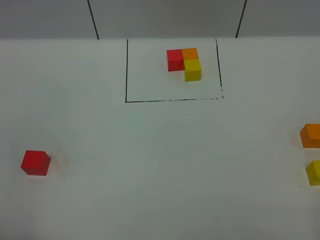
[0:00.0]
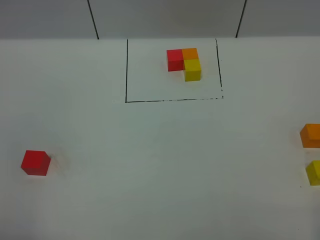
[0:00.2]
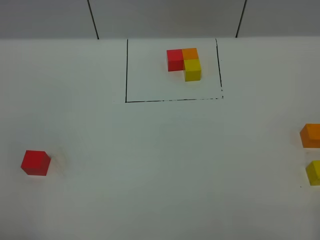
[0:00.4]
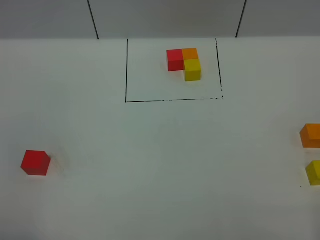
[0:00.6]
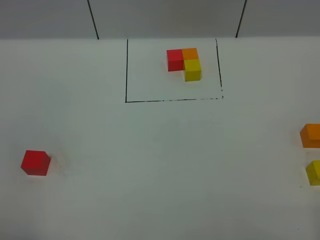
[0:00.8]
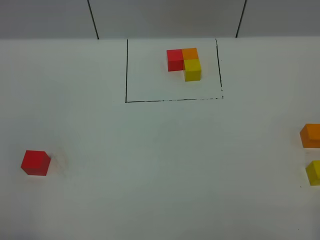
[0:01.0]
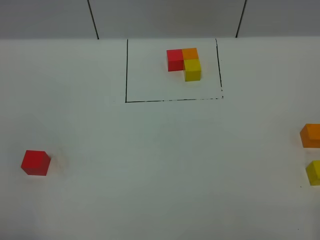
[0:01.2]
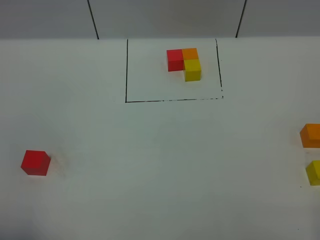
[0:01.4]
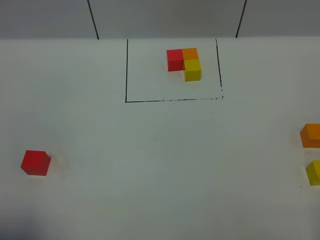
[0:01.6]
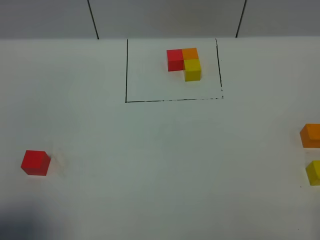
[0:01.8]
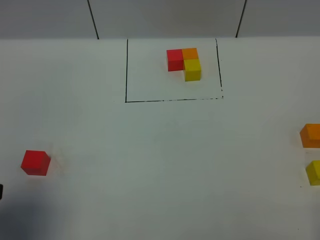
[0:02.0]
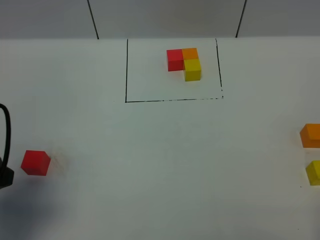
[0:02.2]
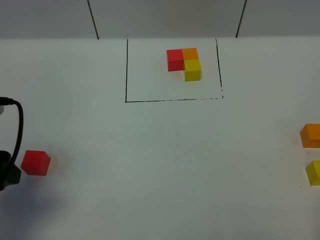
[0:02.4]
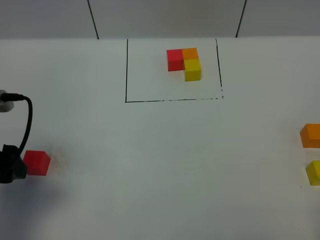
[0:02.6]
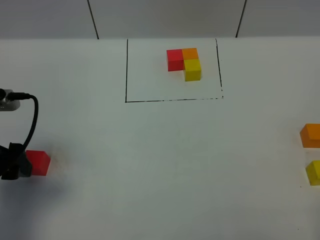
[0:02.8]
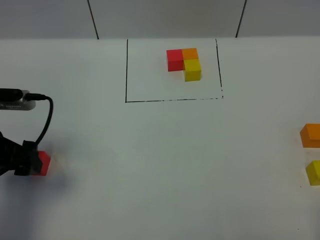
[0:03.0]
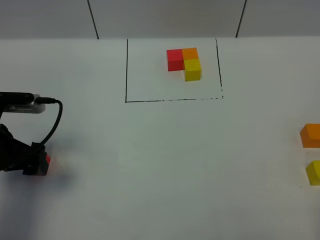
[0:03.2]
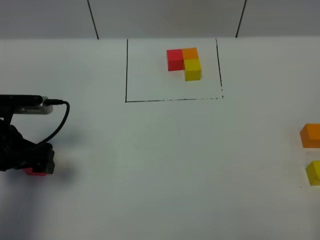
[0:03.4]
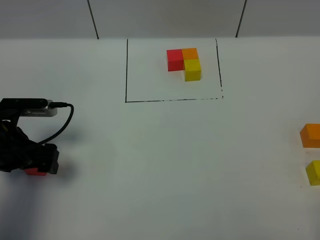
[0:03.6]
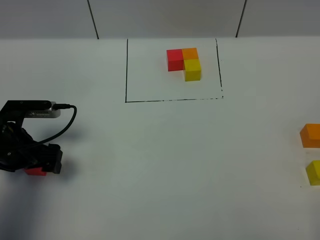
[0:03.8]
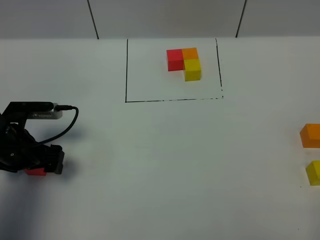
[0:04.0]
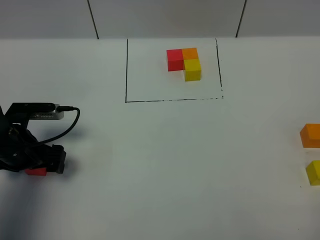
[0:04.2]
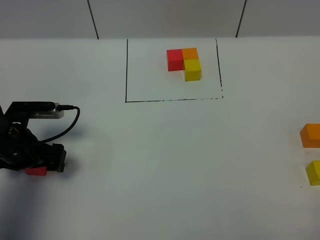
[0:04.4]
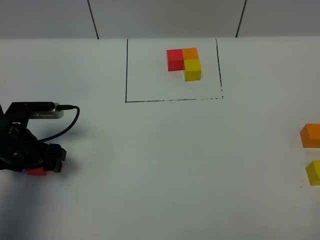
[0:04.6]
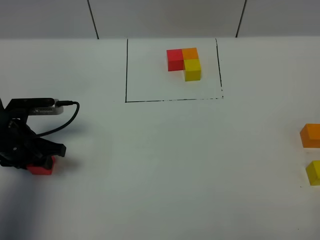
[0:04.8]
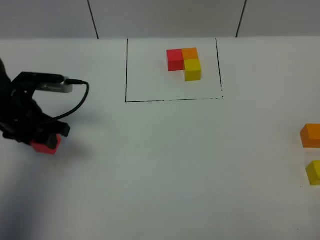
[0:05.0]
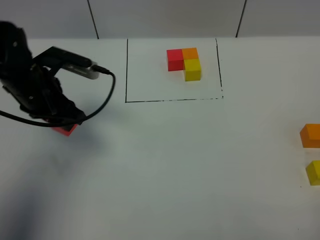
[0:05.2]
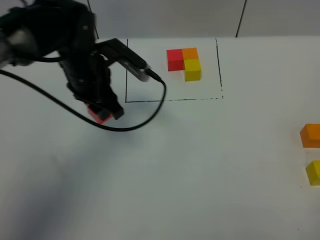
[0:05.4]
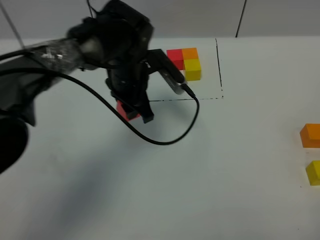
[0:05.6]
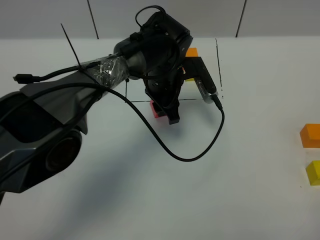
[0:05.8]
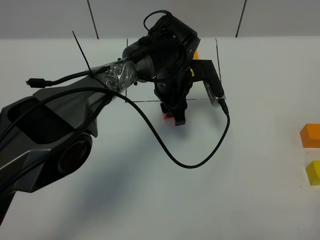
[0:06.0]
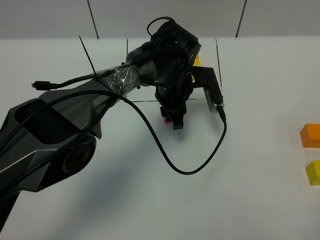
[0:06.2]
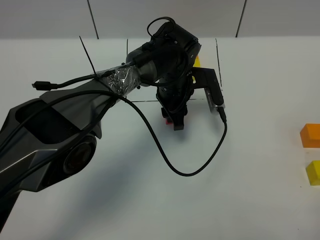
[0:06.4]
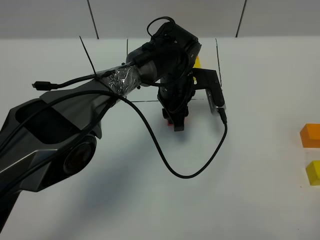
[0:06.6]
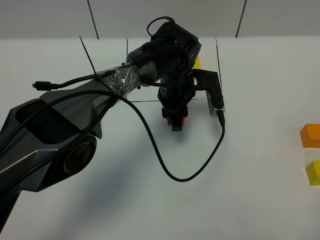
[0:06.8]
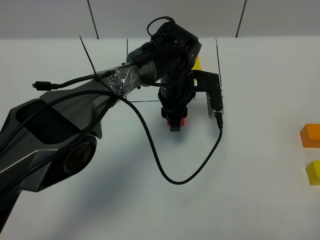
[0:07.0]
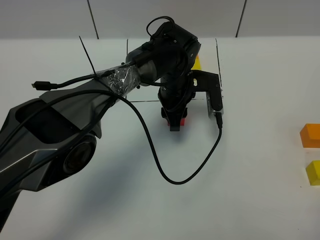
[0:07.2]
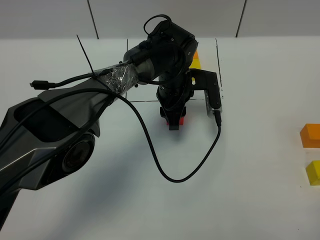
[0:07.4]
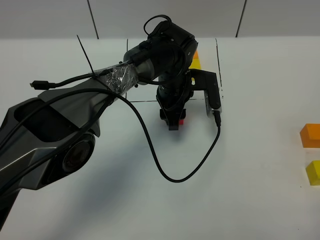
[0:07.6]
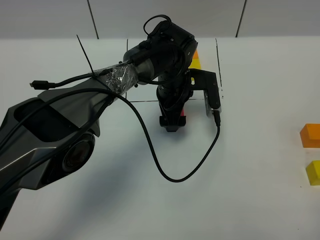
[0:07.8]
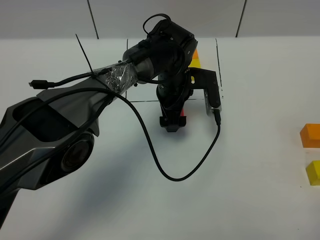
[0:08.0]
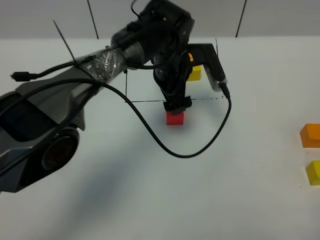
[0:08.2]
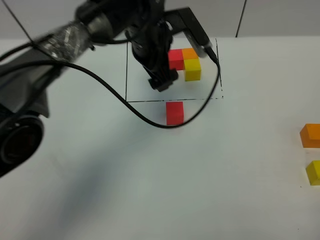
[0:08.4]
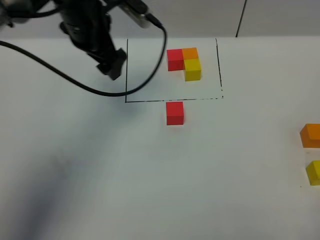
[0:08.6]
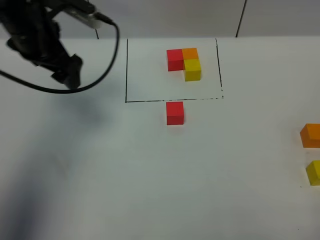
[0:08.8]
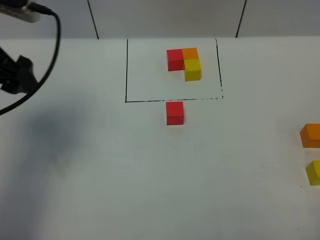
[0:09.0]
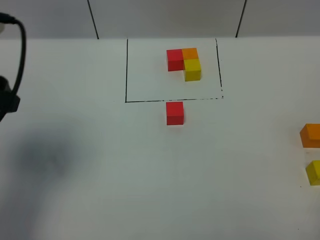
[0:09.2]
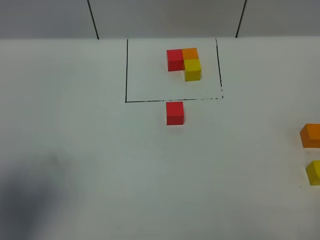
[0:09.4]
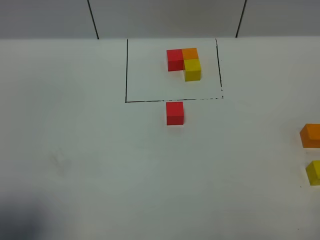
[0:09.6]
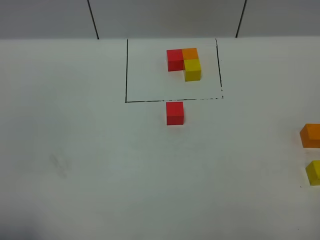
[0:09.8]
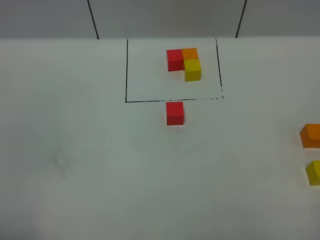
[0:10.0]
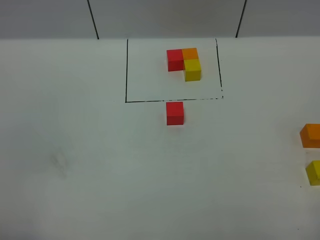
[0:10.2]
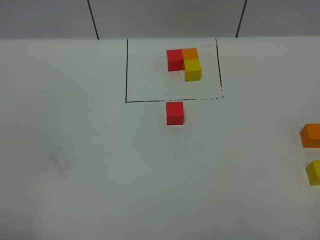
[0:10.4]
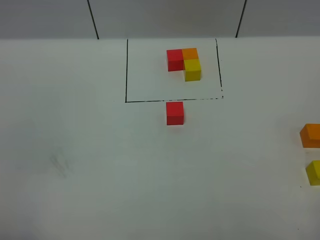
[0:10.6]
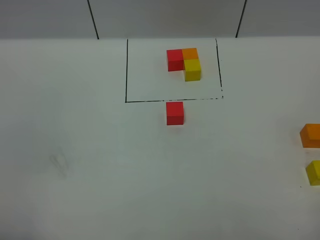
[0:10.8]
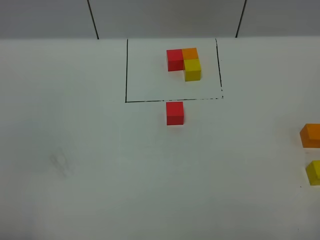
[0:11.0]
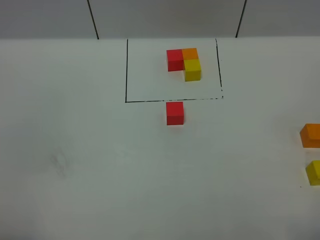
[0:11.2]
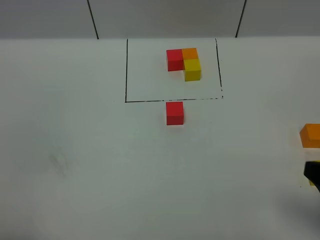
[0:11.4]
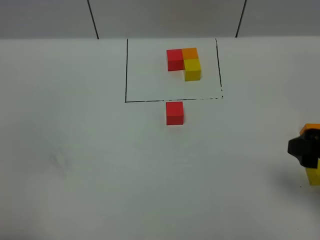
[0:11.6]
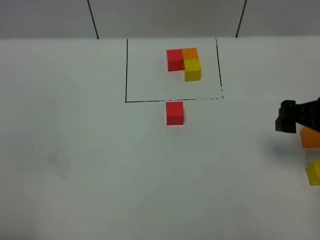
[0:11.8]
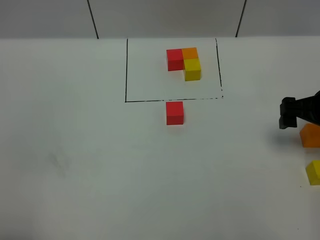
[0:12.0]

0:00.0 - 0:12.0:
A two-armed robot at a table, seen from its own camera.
Task of the whole recording: According to the building block template in front, assemble the scattered blocks together.
Step, 0:00.0 - 0:07.4: Put the red build block in the center of the table.
0:01.6 - 0:03.0: The left gripper goes some 20 cm forward.
0:03.0 - 0:04.4: The left gripper shifts roughly 10 cm downward and forward.
0:04.4 - 0:06.0: The left gripper travels to the right and forward by about 35 cm, and closes its fingers.
0:06.0 - 0:07.6: There are only small adjustments of the grippers.
0:07.6 - 0:09.0: The left gripper heads to the left, upward and backward, covering approximately 40 cm, and opens its fingers.
0:09.0 - 0:10.4: The left gripper travels backward by approximately 30 cm.
0:10.4 - 0:12.0: The right gripper goes some 30 cm forward.

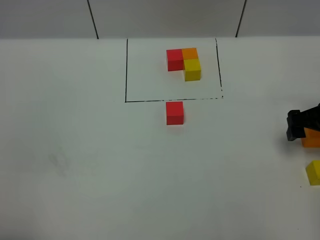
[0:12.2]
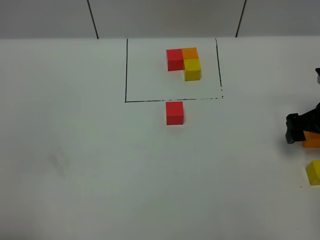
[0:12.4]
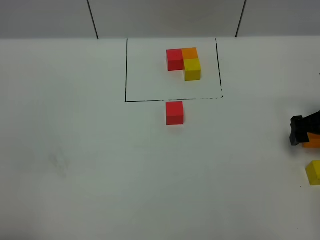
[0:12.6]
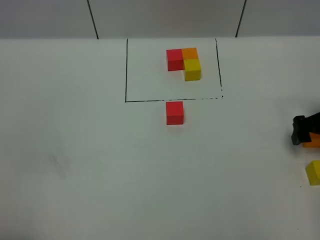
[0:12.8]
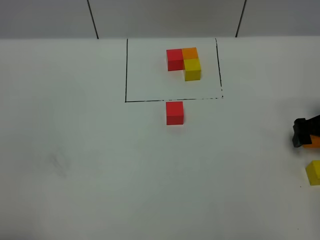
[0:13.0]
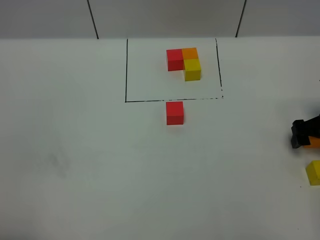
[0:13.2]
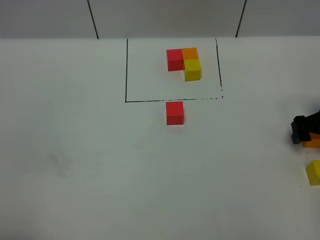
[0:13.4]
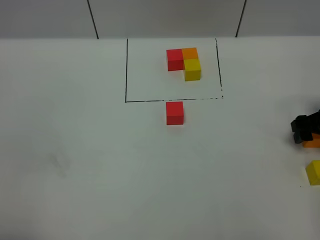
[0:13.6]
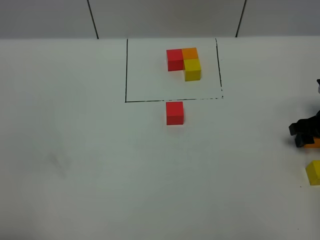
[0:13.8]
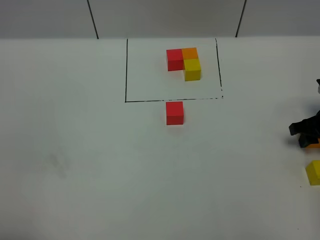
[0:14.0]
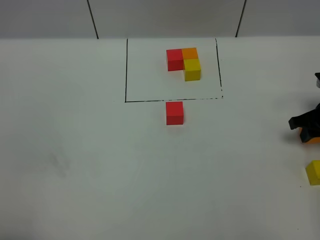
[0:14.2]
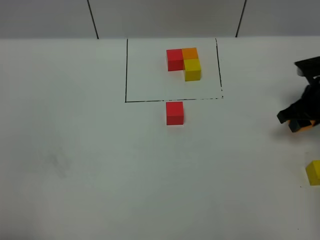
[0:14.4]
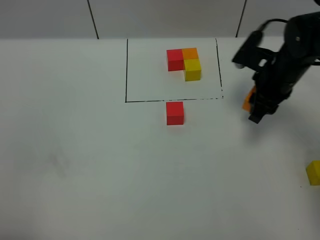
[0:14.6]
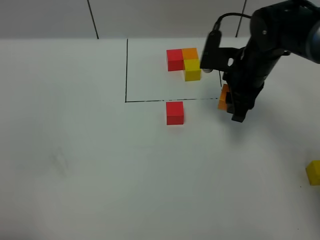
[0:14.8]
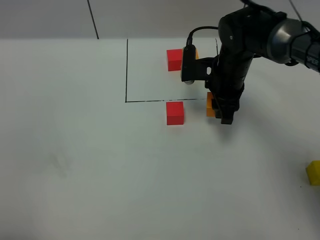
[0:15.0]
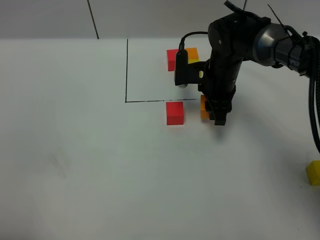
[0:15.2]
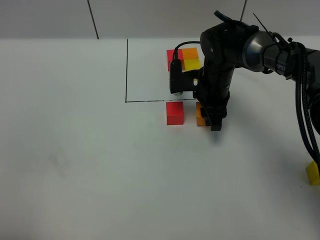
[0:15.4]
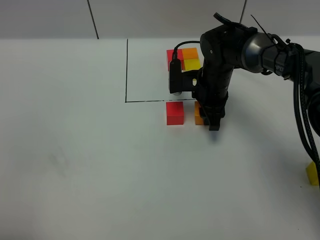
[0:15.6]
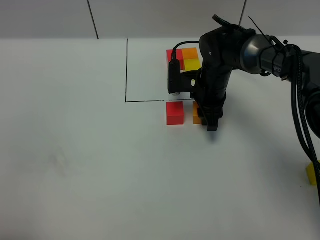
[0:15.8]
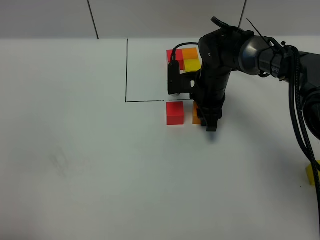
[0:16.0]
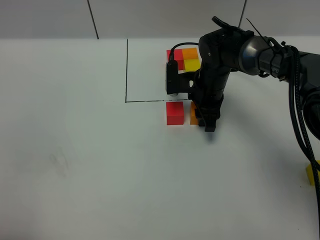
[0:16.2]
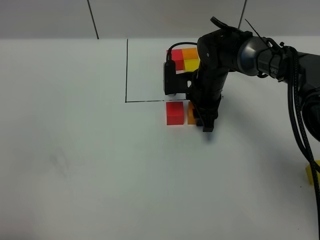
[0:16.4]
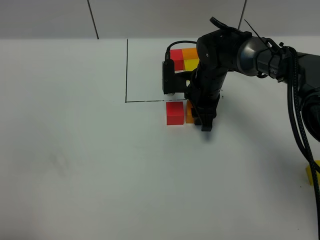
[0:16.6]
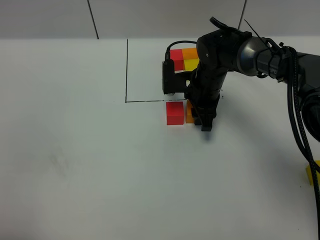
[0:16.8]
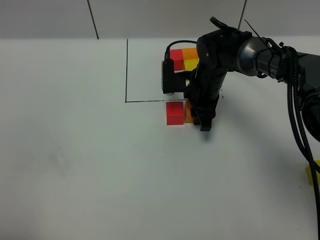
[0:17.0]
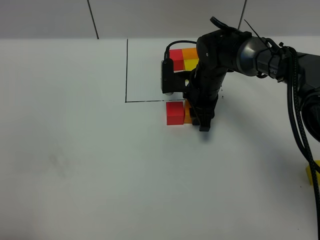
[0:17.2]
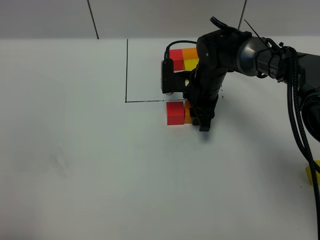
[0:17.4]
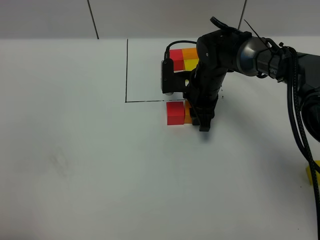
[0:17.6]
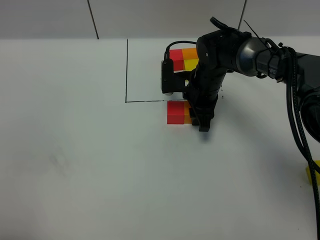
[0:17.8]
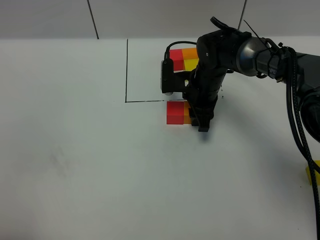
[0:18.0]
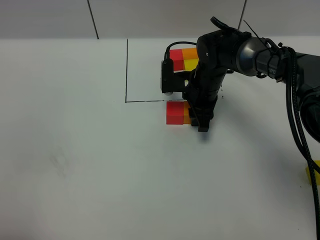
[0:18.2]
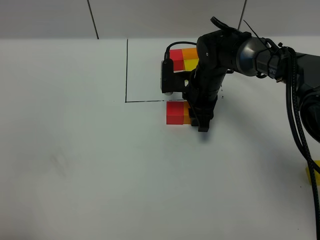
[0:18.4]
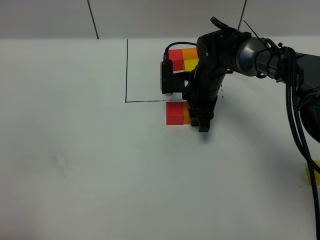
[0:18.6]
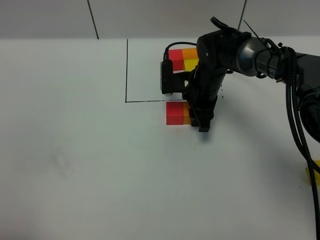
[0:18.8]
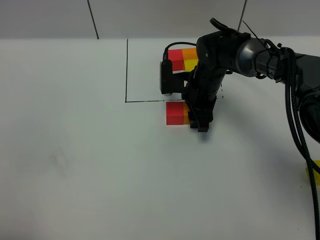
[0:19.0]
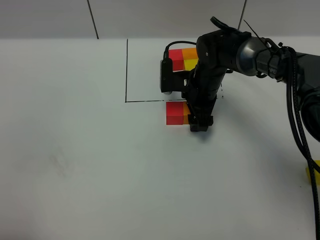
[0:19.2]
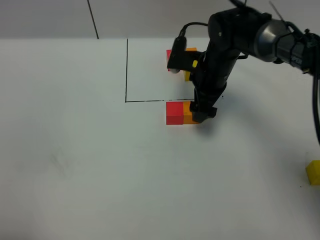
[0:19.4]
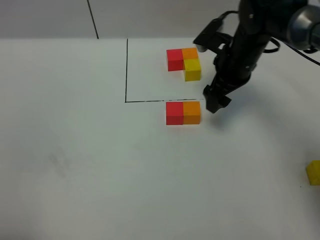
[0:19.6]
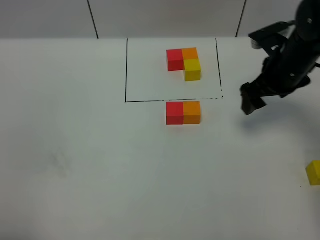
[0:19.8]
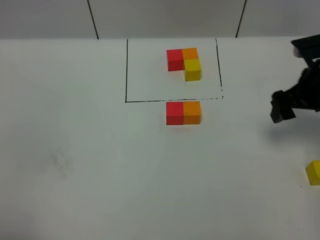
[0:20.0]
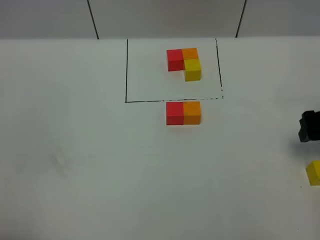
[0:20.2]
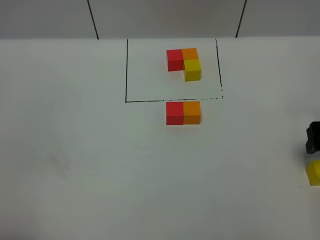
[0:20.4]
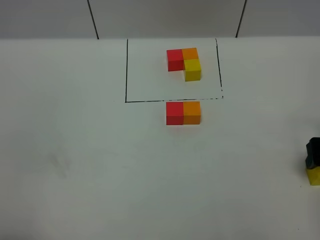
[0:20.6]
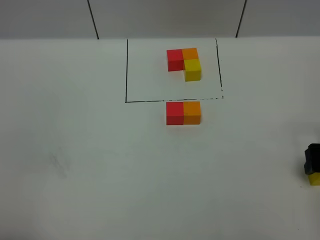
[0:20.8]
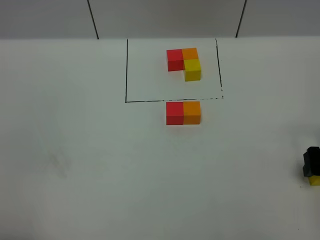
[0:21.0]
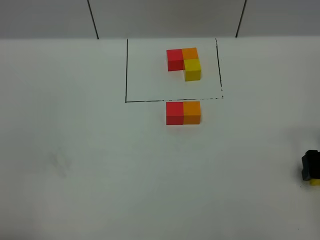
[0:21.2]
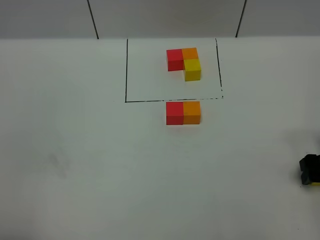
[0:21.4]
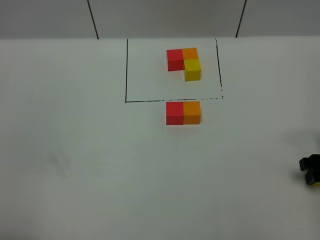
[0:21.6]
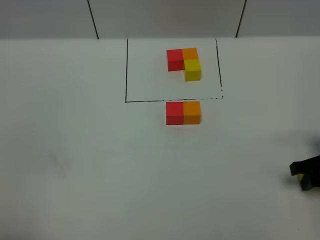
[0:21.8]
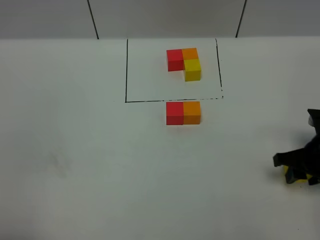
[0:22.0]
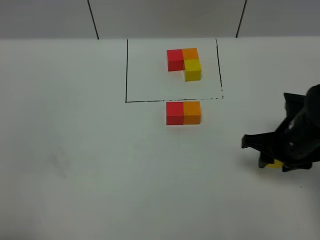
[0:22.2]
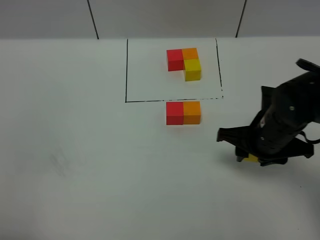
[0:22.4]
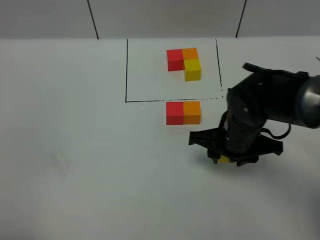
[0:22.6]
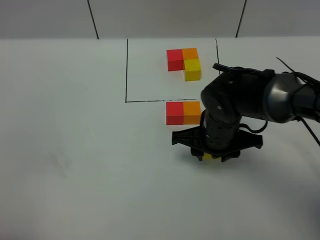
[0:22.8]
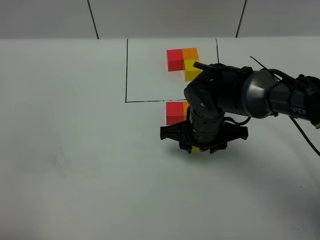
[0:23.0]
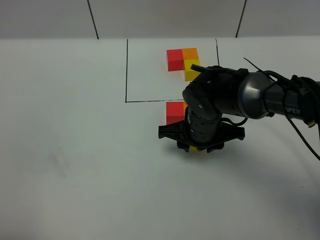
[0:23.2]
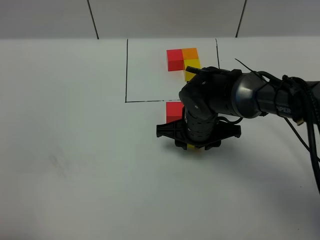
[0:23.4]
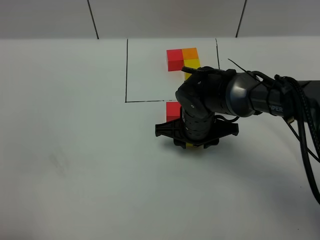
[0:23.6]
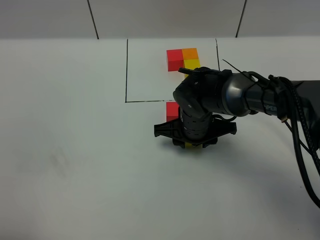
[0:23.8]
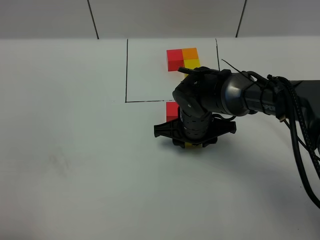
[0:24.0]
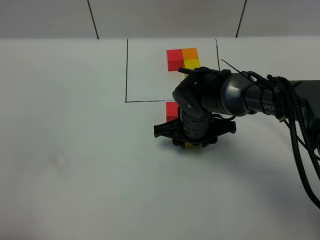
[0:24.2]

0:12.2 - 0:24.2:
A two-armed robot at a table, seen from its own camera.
Task of the whole recording: According to the building block template in front, assemble the scattered blocks together.
Step, 0:12.2 - 0:19.0: Put the orange build block on the right of the red build block.
0:12.2 - 0:13.8: The right gripper shifts about 5 cm downward, and closes its fingers.
0:13.8 - 0:15.2: The right gripper goes approximately 25 cm to the left and forward.
0:15.2 - 0:16.6: There are only small adjustments of the grippers.
0:16.6 - 0:18.2: Both grippers stay put.
0:18.2 - 0:19.8: The right gripper is displaced to the right and upward by some 20 cm, and opens its fingers.
0:19.8 - 0:21.2: The right gripper travels backward, to the right and downward by about 20 cm.
0:21.2 - 0:22.6: The right gripper moves to the left, some 20 cm, and closes its fingers.
0:22.6 - 0:24.2: The right gripper is displaced to the left and forward by about 10 cm.
